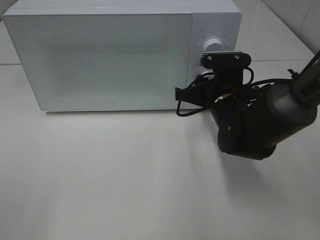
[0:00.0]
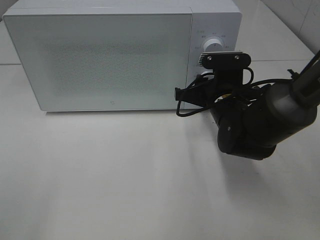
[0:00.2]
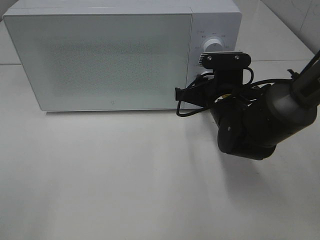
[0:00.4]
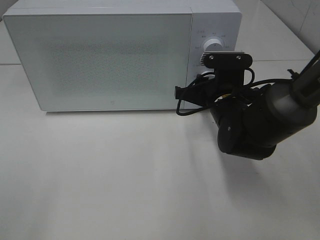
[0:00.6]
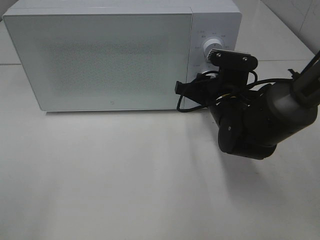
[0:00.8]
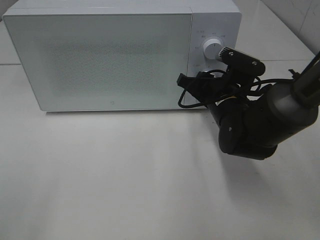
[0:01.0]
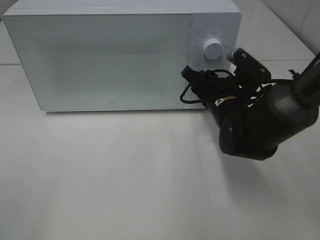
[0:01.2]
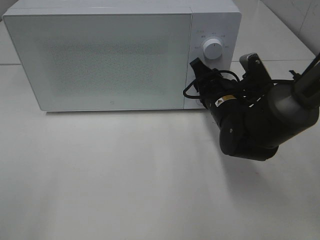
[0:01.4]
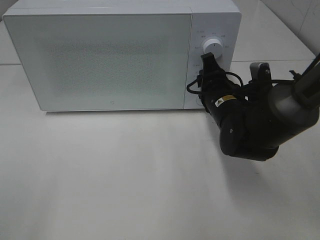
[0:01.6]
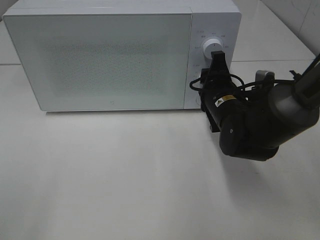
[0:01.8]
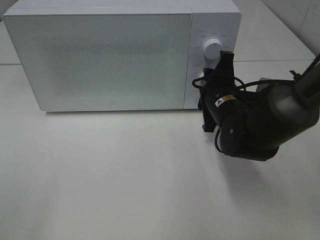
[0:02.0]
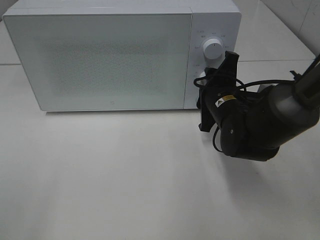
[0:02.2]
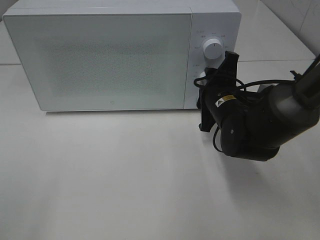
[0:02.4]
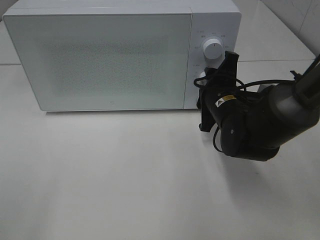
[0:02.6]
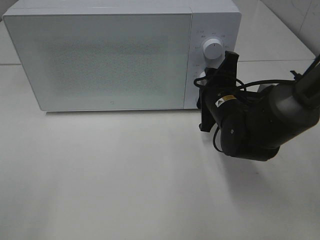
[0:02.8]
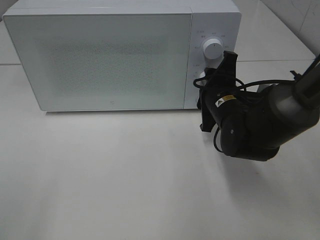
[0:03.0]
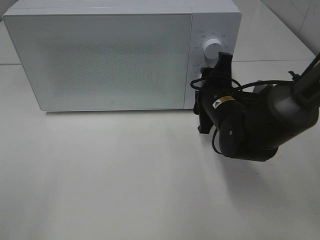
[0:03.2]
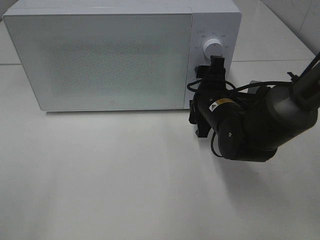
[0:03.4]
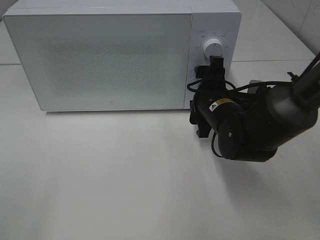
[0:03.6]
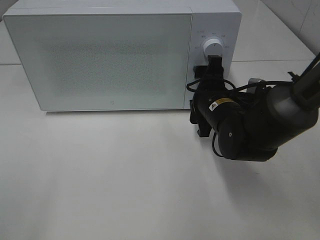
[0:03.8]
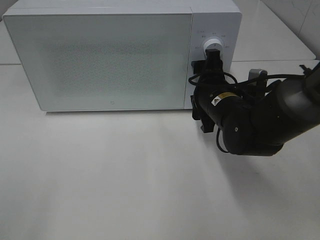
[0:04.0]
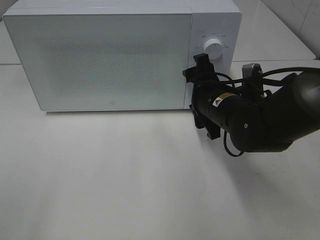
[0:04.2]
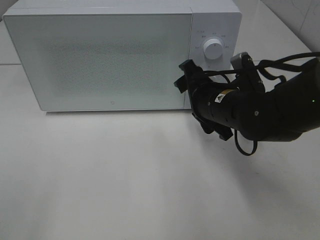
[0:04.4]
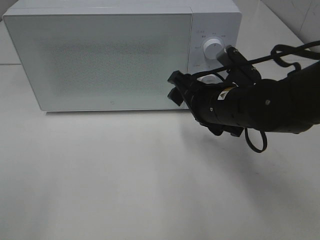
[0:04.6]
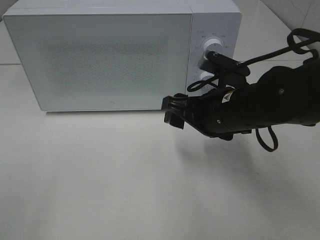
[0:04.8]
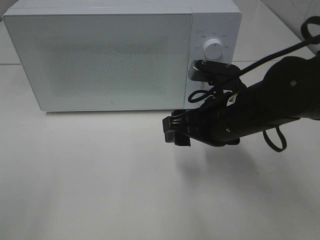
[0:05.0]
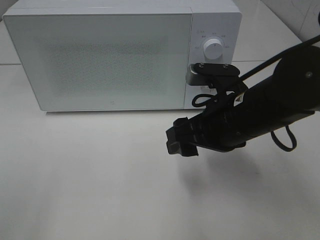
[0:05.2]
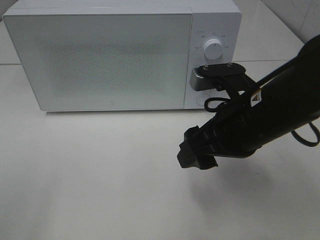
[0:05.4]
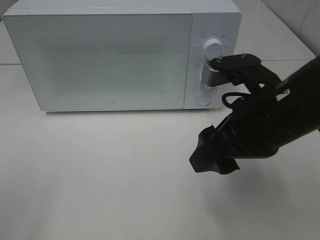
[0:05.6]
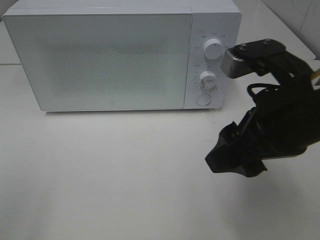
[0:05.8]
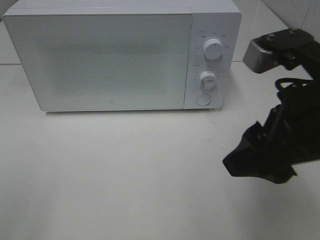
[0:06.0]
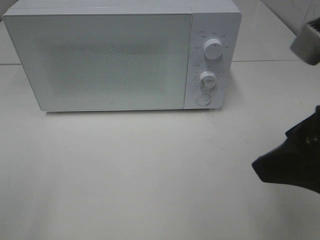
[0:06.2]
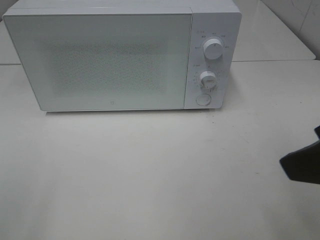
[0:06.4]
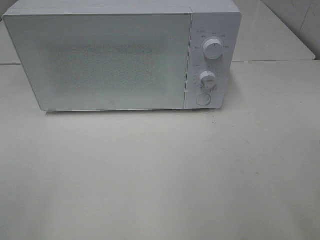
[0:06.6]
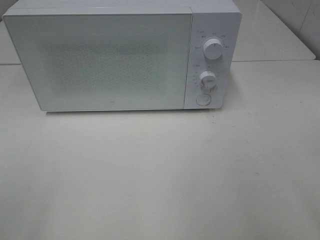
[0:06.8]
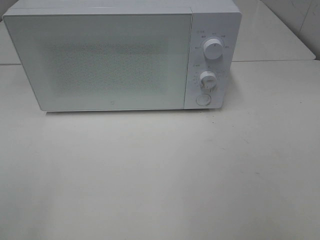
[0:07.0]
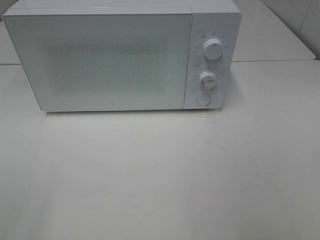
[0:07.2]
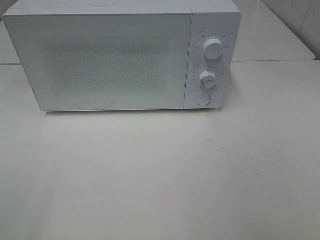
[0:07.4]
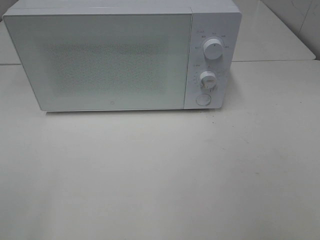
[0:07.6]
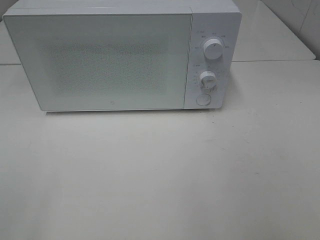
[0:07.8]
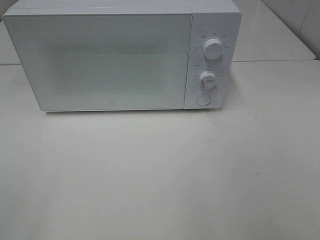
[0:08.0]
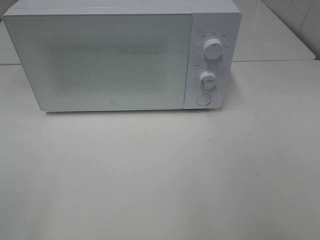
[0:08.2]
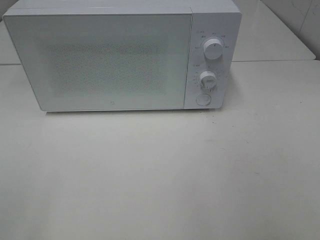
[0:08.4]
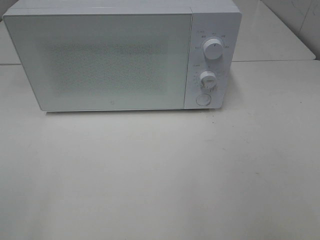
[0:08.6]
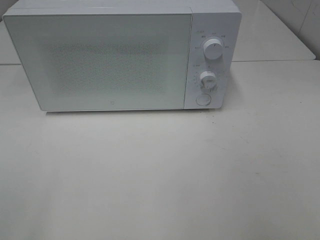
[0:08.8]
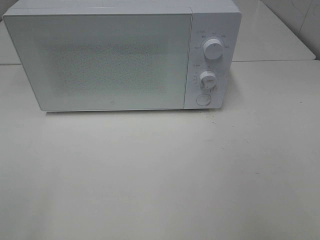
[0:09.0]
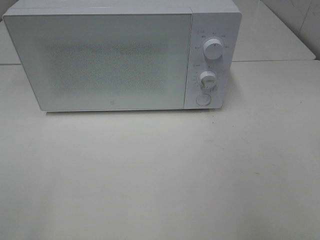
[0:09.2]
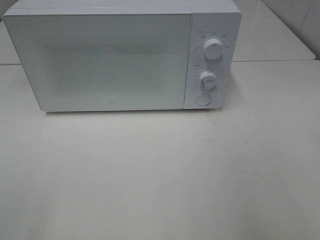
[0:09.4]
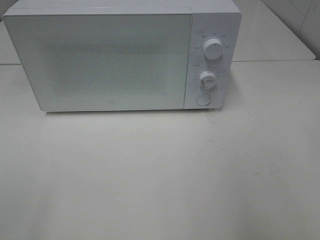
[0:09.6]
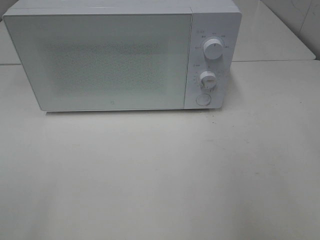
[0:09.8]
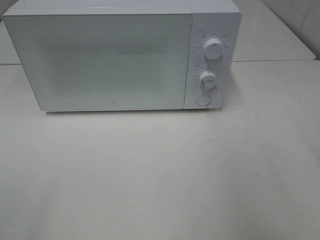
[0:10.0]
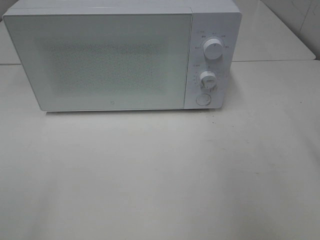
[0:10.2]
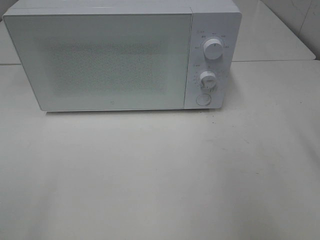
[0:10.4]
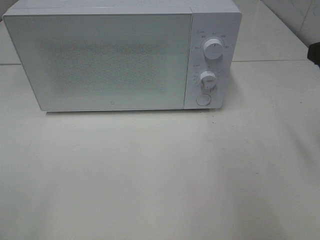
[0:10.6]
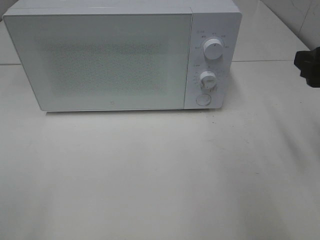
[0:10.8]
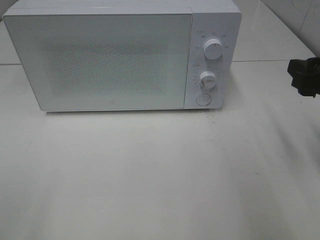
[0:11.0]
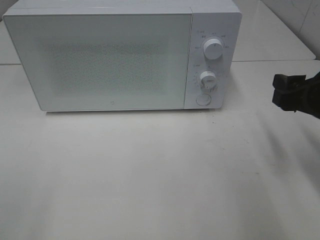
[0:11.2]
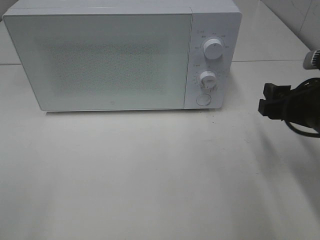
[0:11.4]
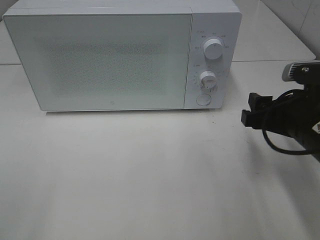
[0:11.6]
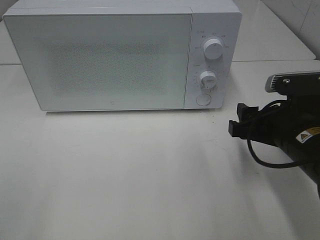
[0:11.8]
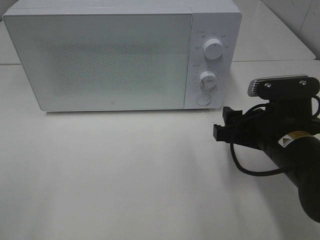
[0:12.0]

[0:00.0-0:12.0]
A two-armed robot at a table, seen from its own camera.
Task of the whole recording: Heat Sandwich.
Step, 0:00.0 to 0:04.2: Right hand: twist timer button.
0:04.4 to 0:06.0: The right gripper travels backward and upward by about 20 cm.
0:06.0 to 0:07.6: The right gripper shifts roughly 20 cm backward and to the right.
0:10.4 to 0:12.0: The right gripper heads downward and to the left, covering approximately 20 cm.

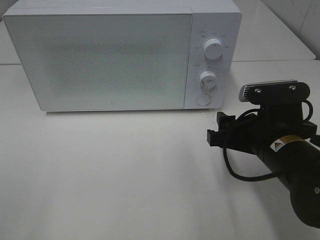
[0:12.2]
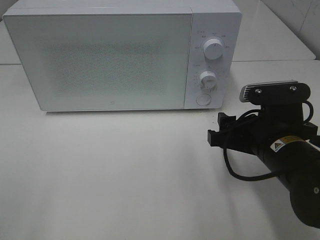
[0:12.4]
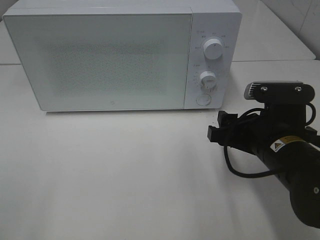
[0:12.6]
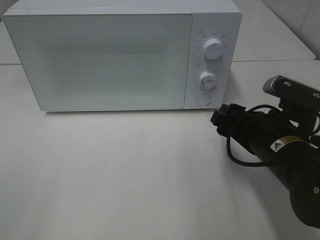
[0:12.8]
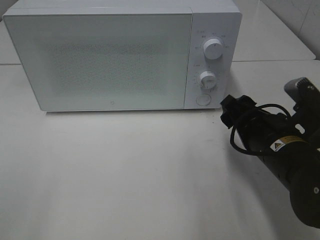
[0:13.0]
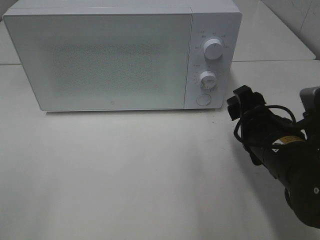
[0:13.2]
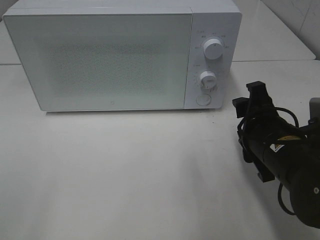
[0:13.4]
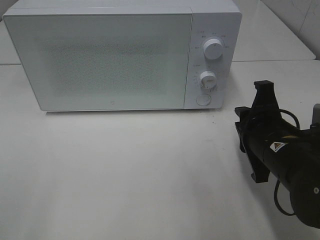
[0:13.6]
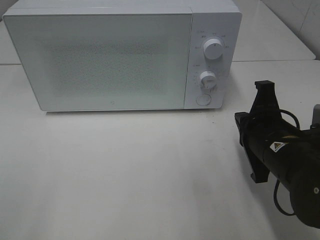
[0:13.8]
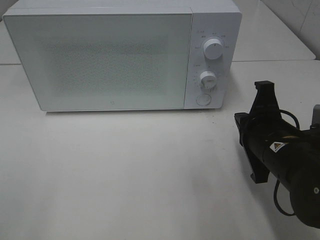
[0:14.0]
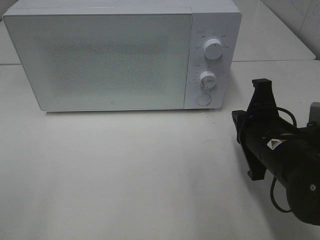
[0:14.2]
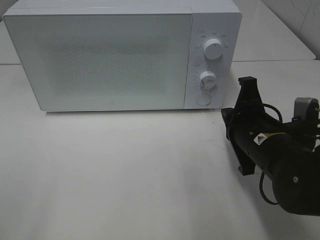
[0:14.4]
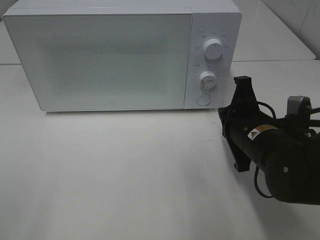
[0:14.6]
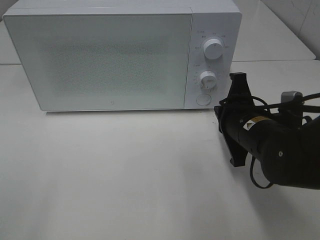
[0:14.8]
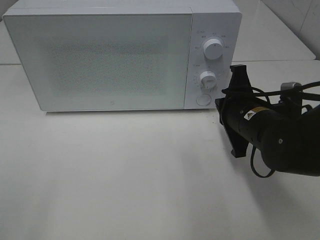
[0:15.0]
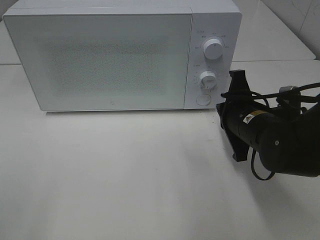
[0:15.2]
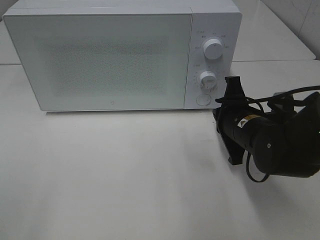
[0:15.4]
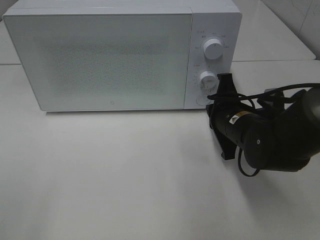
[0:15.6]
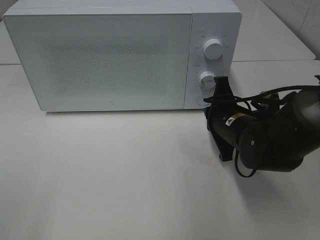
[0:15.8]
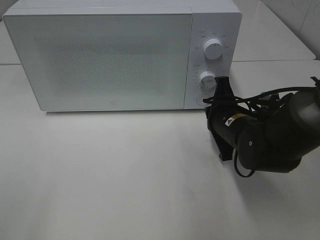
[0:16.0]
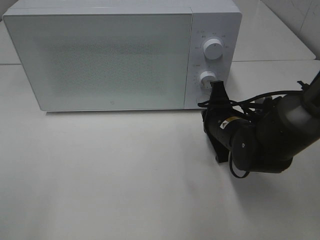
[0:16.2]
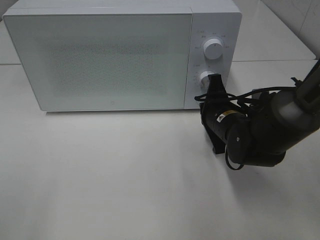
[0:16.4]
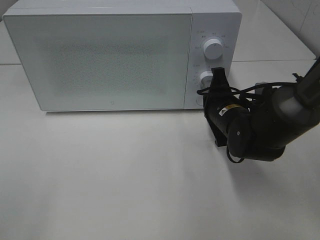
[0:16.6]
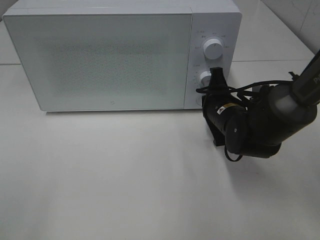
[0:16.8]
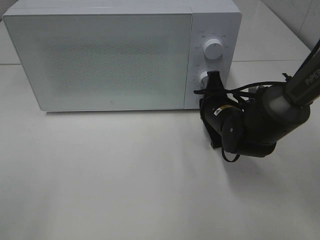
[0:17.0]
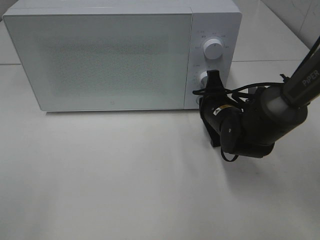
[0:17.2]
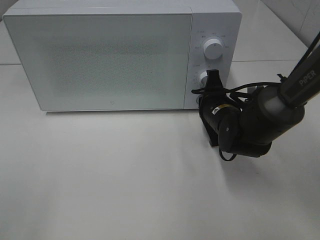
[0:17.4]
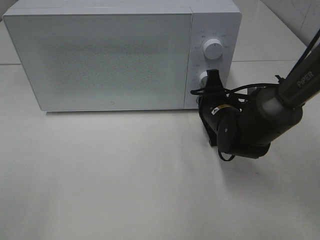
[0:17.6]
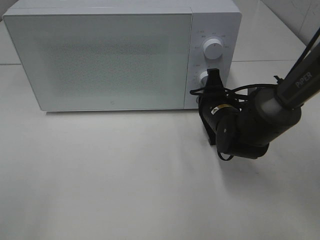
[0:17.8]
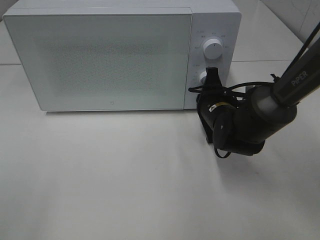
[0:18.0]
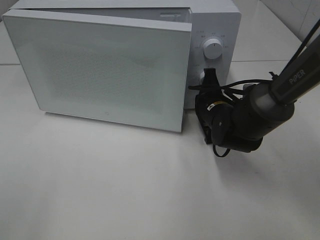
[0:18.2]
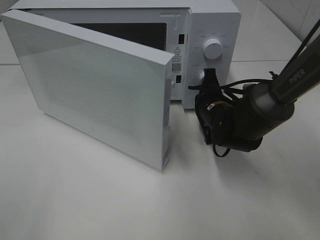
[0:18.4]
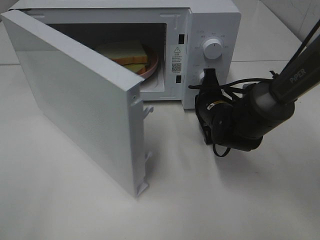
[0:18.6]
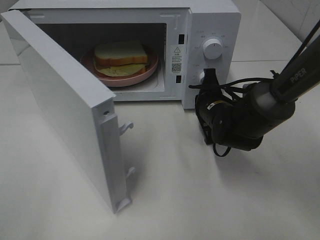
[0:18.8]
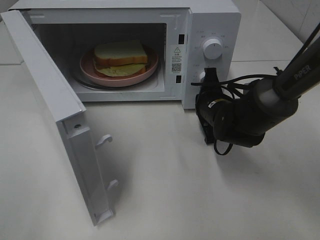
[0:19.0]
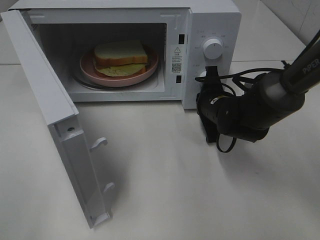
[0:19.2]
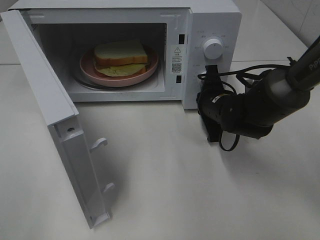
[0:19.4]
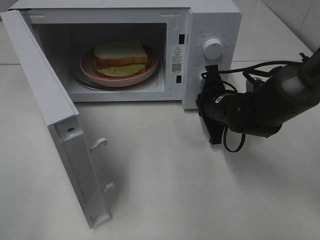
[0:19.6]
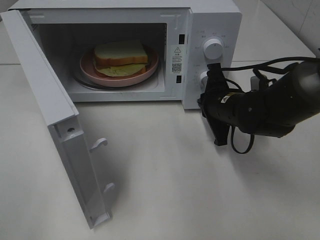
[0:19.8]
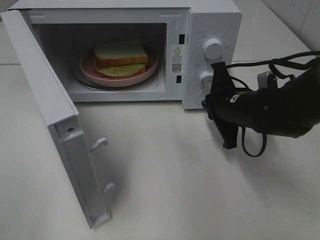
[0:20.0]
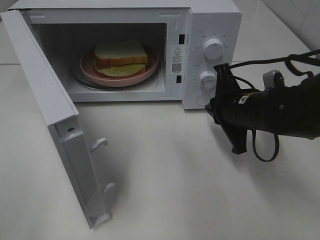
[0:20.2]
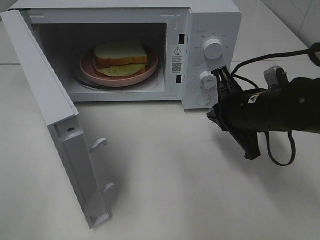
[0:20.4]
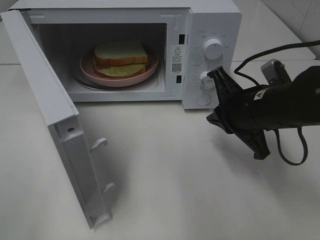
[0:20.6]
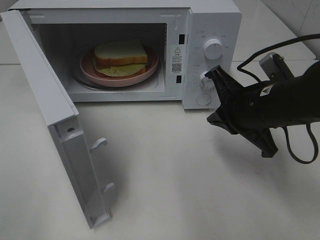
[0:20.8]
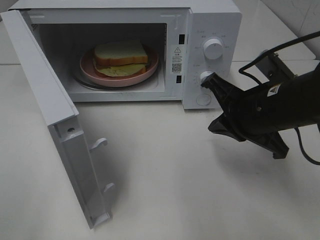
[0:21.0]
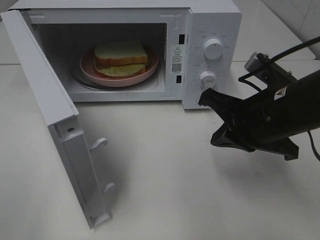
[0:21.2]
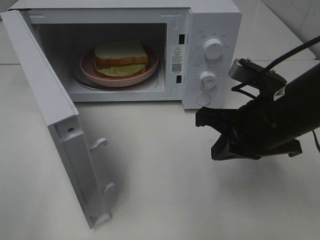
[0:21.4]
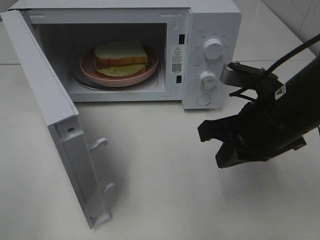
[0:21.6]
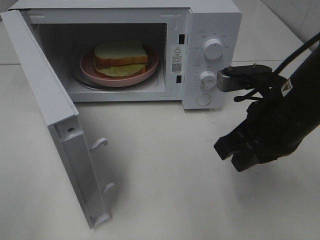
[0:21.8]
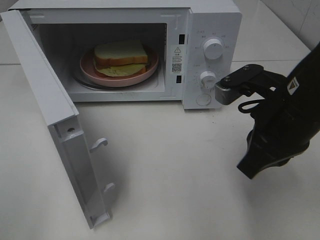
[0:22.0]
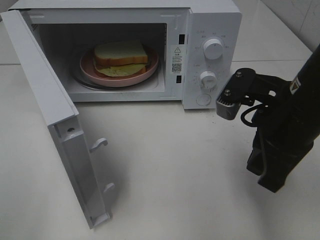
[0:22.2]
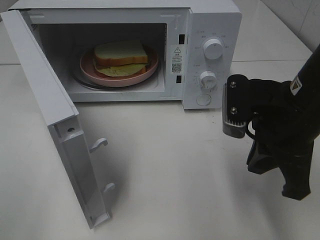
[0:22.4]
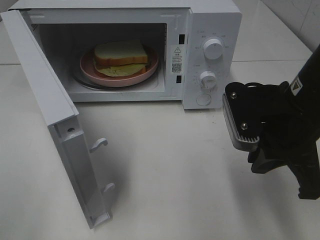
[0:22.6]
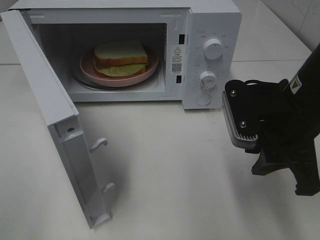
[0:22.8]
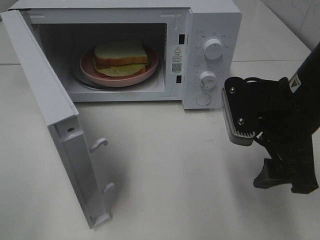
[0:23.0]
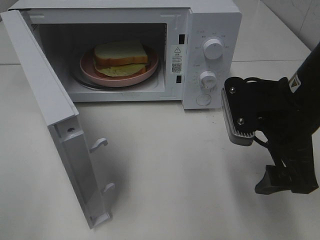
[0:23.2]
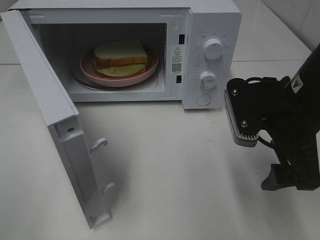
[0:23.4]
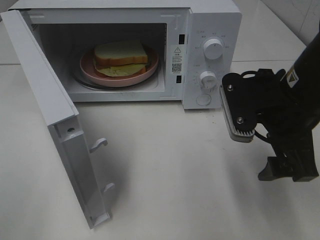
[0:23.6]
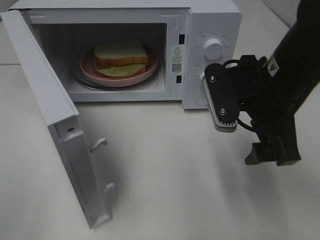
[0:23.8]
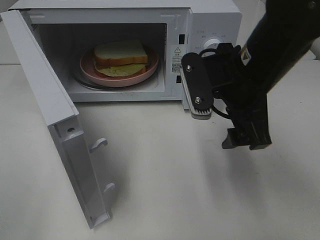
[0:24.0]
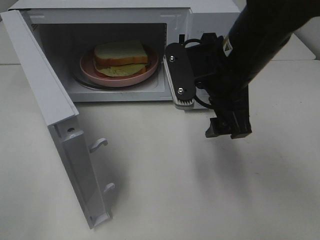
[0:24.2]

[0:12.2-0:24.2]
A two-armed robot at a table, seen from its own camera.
Task of the whole recording: Heat Sandwich.
Step, 0:12.2 to 0:19.8: Right hand: press the switch.
0:12.2 to 0:13.8: The right gripper closes its fingers.
0:13.8 to 0:15.2: The right gripper travels forward by about 5 cm.
0:15.2 to 0:16.6: The right gripper goes about 5 cm forward.
0:16.6 to 0:18.2: The grippers make only small movements.
0:19.8 to 0:21.2: The right gripper is displaced backward and upward by roughly 15 cm.
0:22.6 to 0:24.2: The right gripper moves to the left and forward, roughly 10 cm, and opens.
